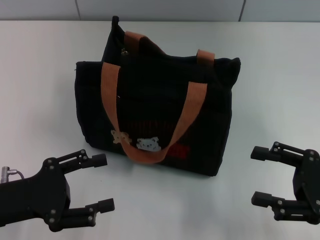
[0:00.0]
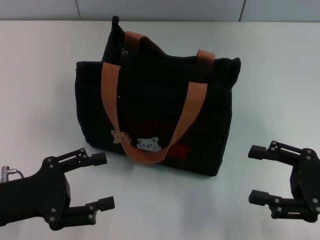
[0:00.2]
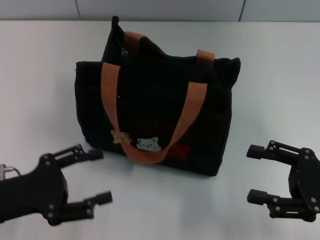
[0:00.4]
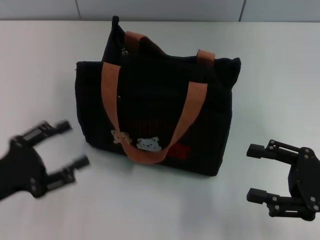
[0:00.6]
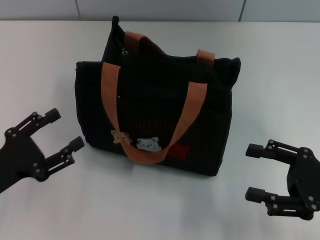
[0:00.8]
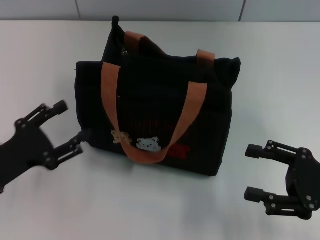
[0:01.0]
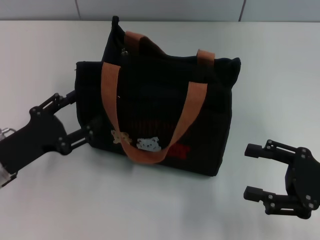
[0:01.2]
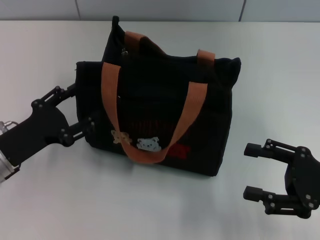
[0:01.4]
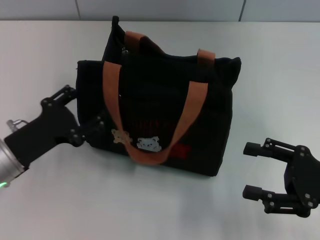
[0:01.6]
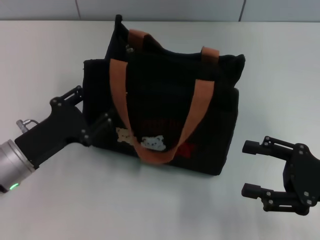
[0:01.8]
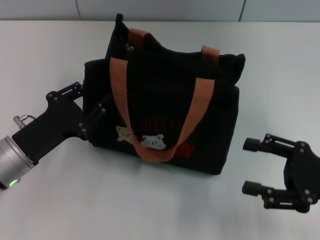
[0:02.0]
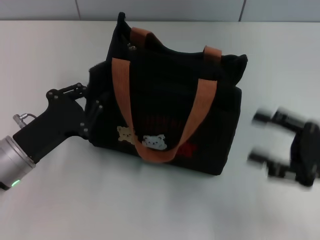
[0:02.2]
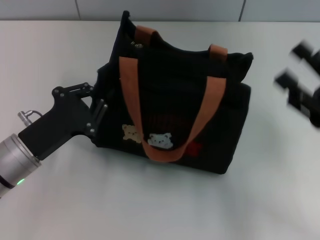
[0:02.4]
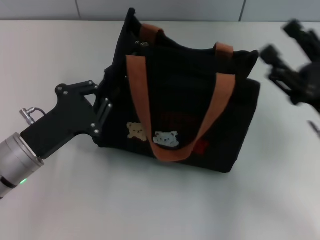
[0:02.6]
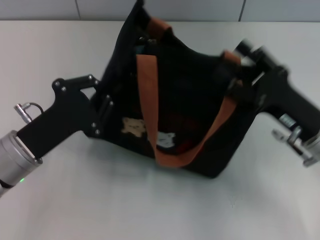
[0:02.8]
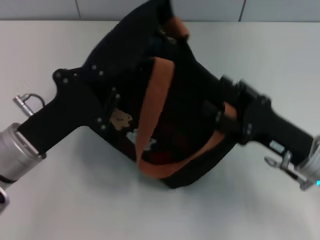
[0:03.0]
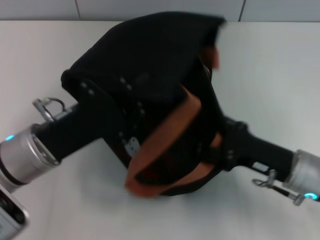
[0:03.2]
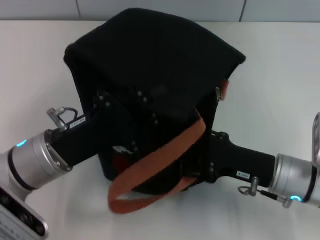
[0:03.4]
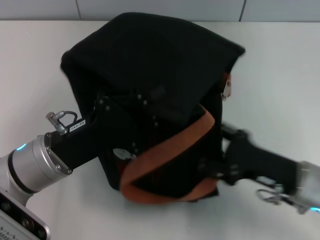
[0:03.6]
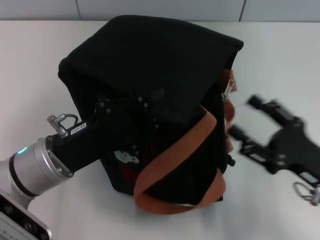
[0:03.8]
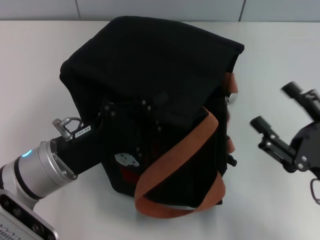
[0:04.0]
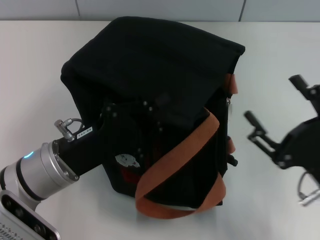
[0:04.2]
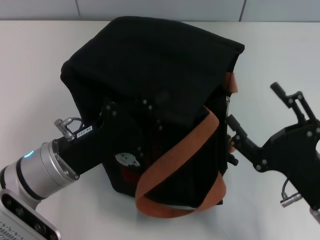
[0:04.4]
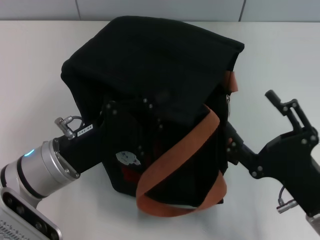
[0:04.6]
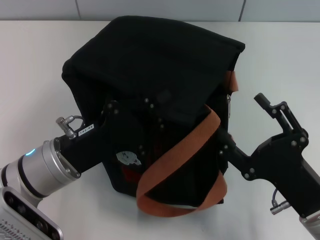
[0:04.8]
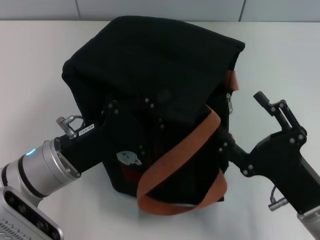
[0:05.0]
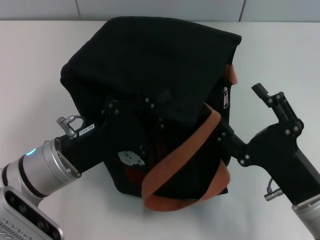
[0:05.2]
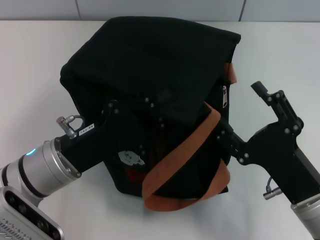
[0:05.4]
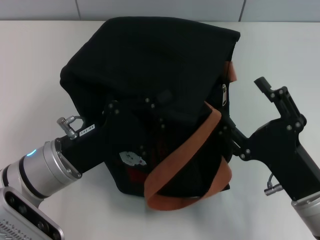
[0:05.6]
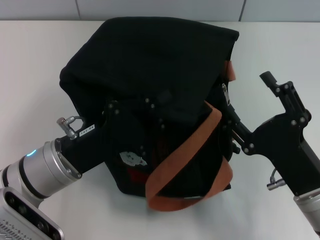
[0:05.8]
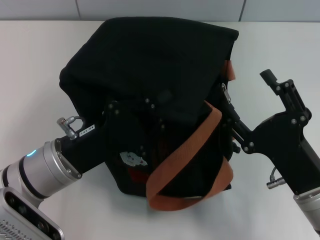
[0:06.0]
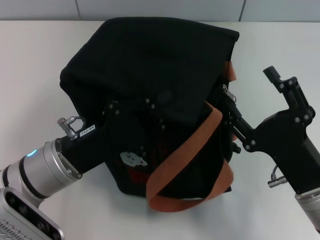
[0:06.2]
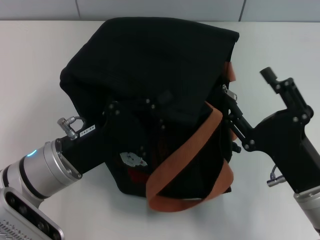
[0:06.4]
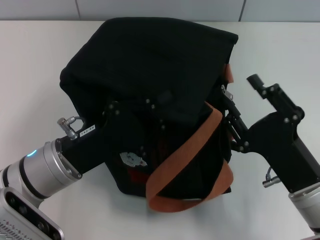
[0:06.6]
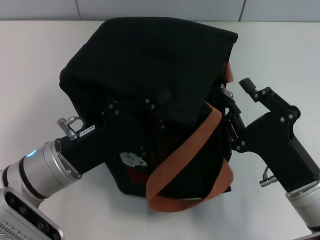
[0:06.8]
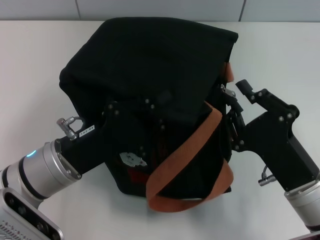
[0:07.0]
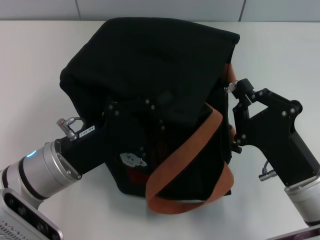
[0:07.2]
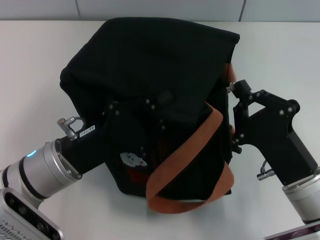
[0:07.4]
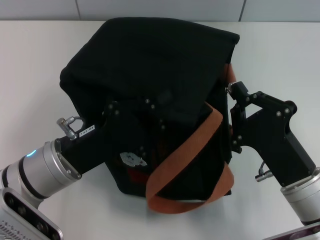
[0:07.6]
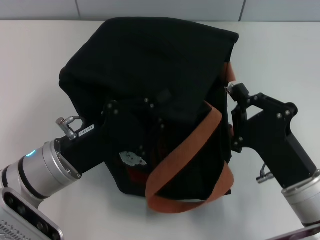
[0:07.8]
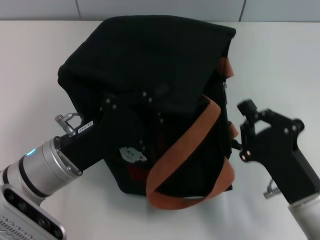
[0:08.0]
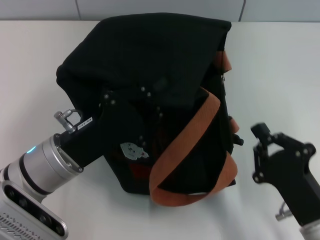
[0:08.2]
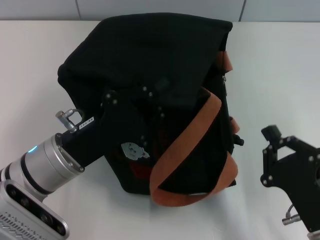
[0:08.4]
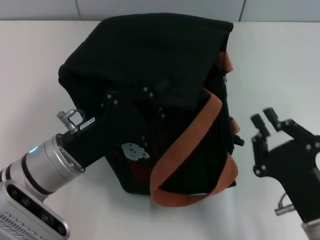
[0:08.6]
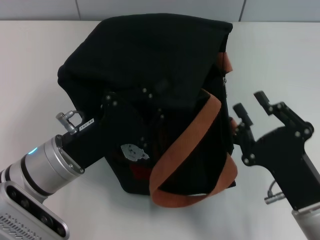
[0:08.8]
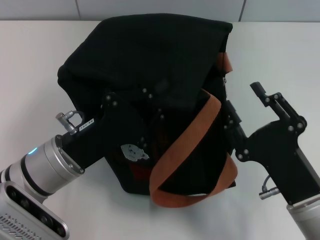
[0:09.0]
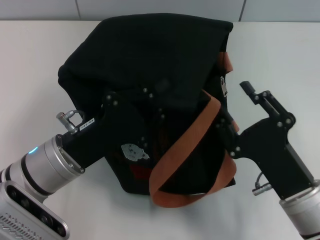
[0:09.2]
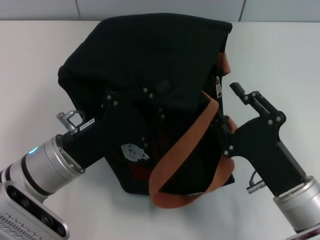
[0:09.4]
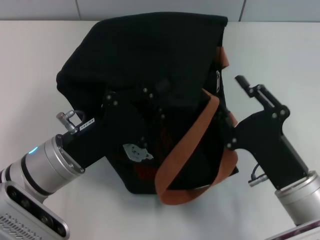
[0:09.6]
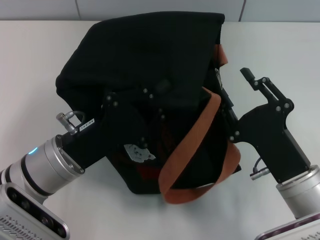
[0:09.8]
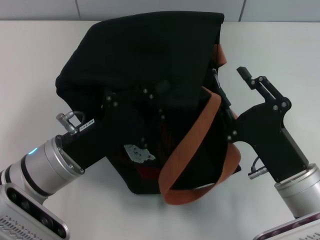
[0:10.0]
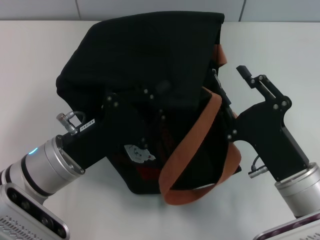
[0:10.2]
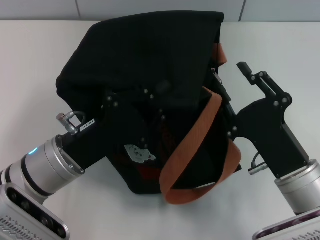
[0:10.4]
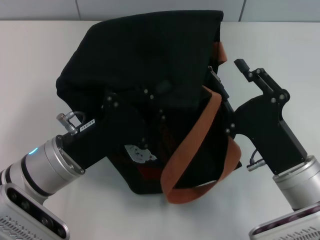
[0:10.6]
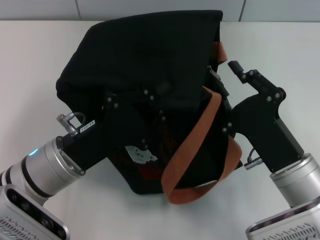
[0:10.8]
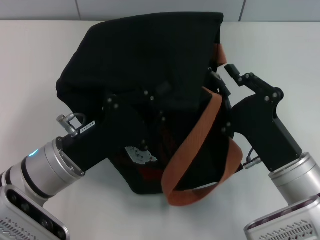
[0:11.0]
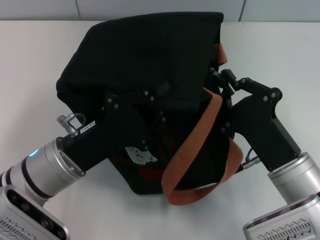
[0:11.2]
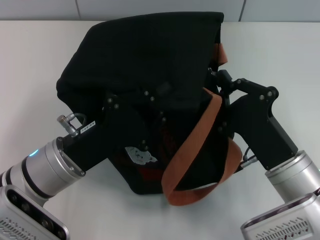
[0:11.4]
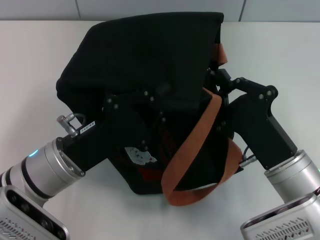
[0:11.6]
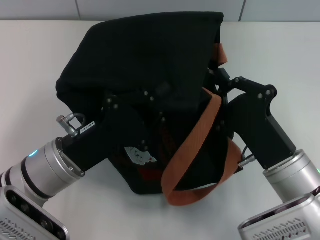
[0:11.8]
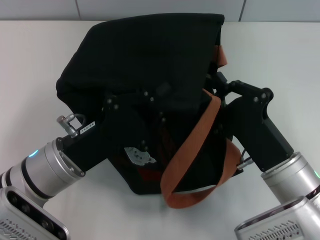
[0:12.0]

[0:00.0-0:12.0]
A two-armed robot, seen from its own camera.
0:00.0 to 0:01.6: The left gripper moves forward, some 5 cm.
0:01.6 to 0:03.0: The right gripper moves to the left, approximately 5 cm; the left gripper shifts by approximately 5 cm, and closes.
0:03.0 to 0:04.4: The right gripper goes approximately 10 cm backward.
0:04.4 to 0:06.0: The grippers stay close to where they were, moving slightly.
0:06.0 to 0:07.6: The right gripper closes up.
0:07.6 to 0:09.0: The right gripper opens.
0:09.0 to 0:10.4: There are only small adjustments of the grippers.
0:10.4 to 0:12.0: The right gripper closes its fingers.

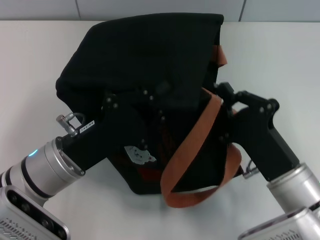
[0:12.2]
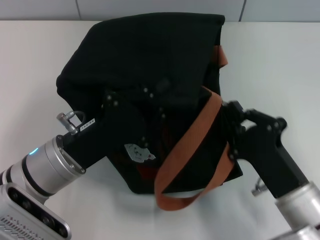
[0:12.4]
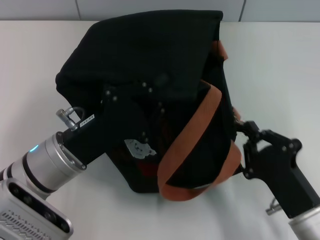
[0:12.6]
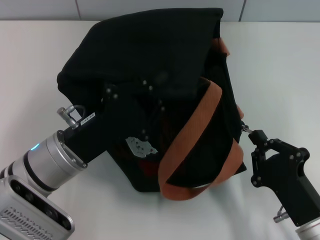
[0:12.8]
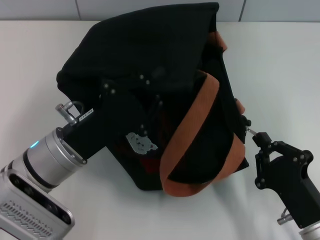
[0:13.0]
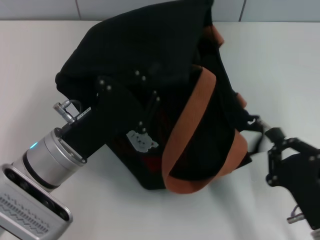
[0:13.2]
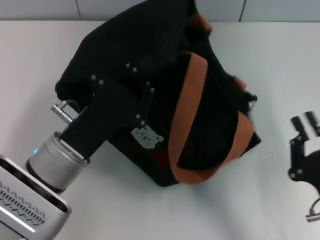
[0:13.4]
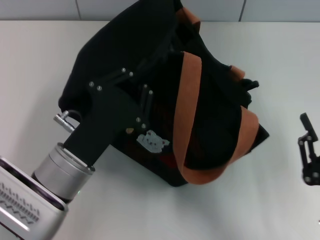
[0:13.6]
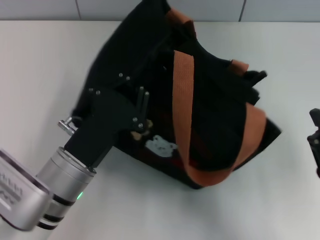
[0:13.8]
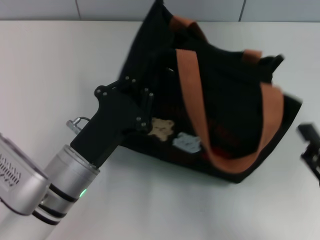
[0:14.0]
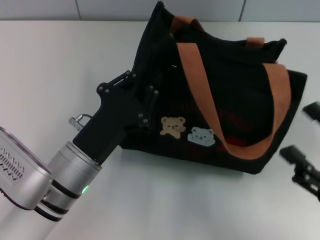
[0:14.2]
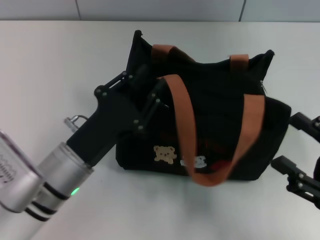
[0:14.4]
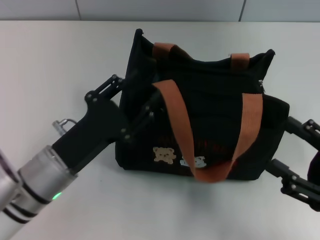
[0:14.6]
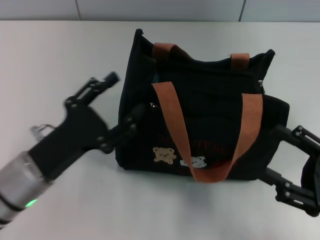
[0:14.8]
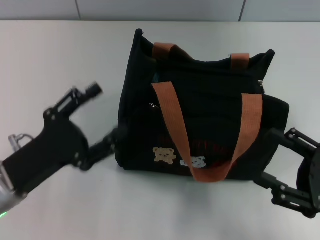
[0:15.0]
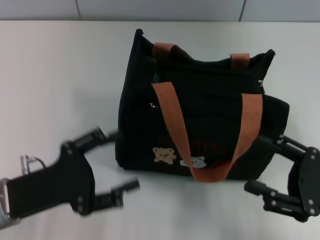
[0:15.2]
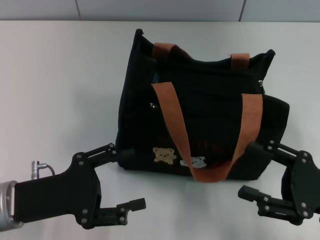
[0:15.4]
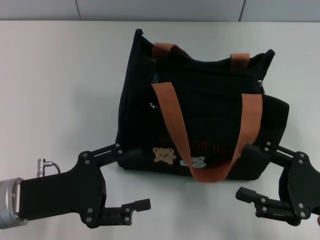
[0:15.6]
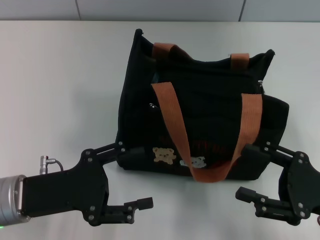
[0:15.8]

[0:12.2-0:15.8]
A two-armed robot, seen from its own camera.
Step, 0:13.4 to 0:14.6: Grab the bag with your left hand.
0:12.2 to 0:14.0: The right gripper heads to the right and backward, covering approximately 10 cm, and opens.
0:14.0 to 0:15.8: The right gripper shifts about 5 cm forward, while the left gripper travels to the left by about 10 cm, and opens.

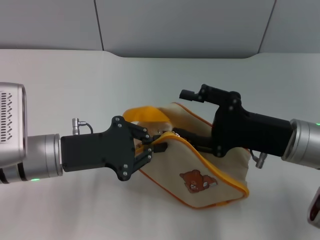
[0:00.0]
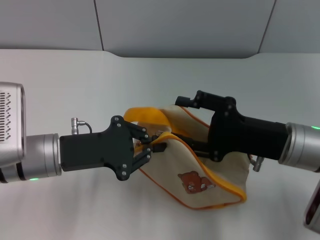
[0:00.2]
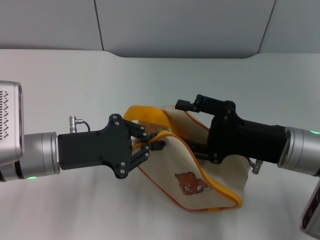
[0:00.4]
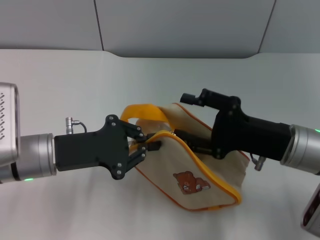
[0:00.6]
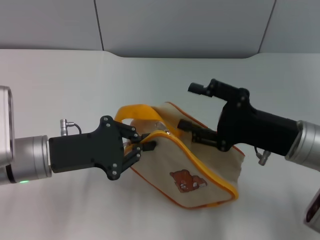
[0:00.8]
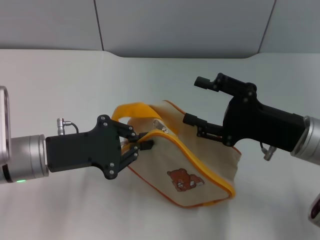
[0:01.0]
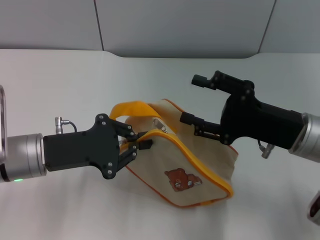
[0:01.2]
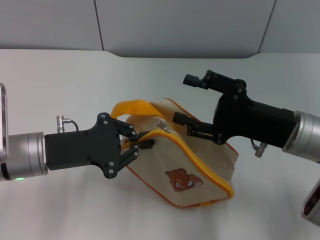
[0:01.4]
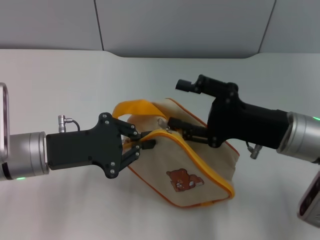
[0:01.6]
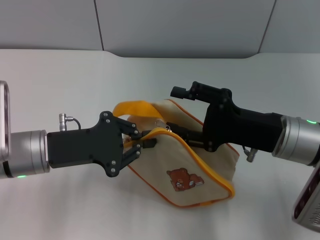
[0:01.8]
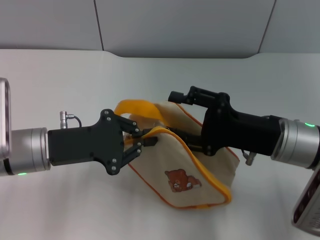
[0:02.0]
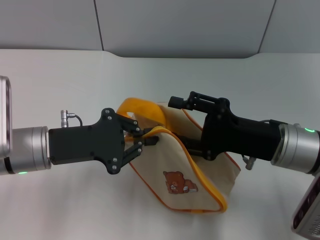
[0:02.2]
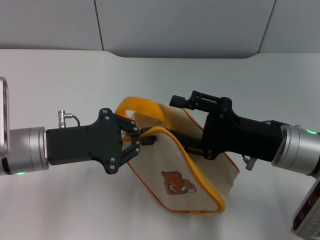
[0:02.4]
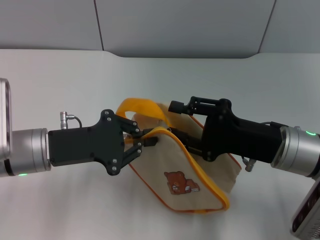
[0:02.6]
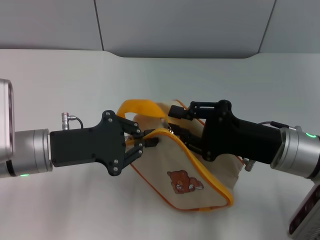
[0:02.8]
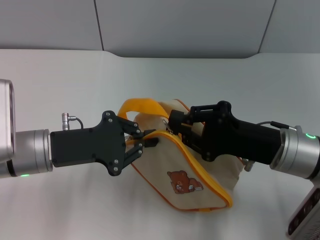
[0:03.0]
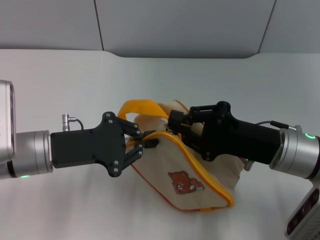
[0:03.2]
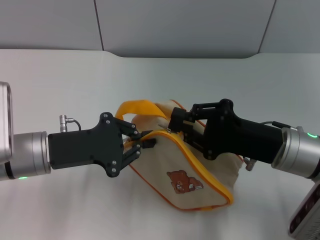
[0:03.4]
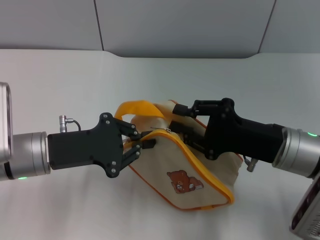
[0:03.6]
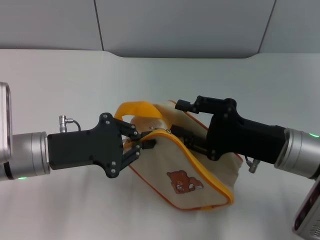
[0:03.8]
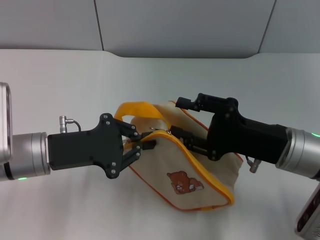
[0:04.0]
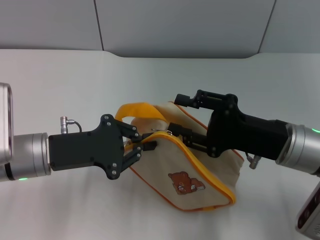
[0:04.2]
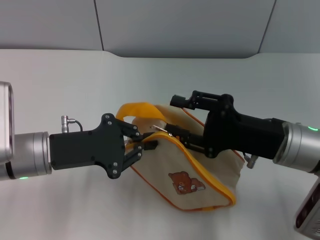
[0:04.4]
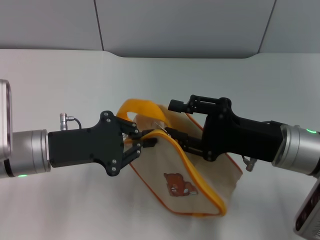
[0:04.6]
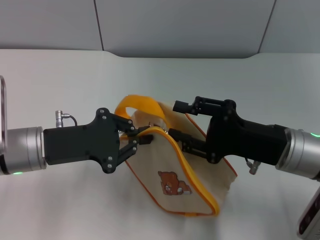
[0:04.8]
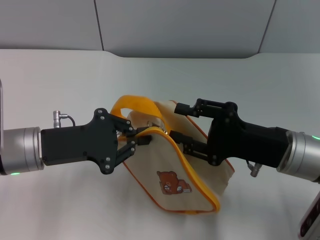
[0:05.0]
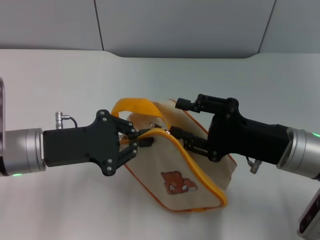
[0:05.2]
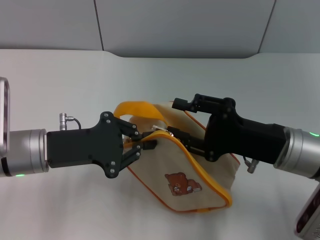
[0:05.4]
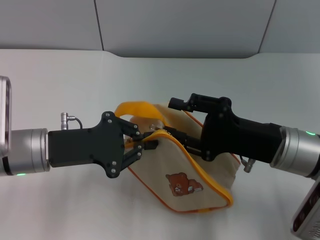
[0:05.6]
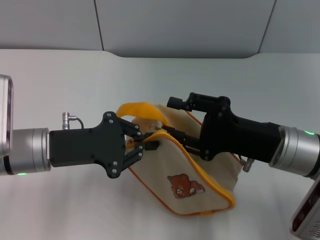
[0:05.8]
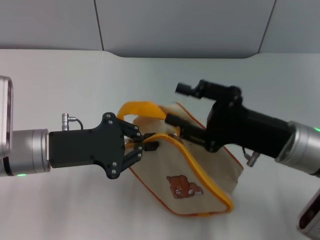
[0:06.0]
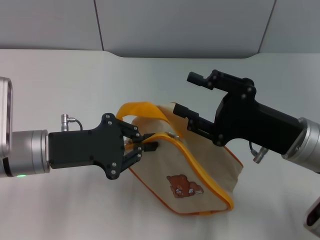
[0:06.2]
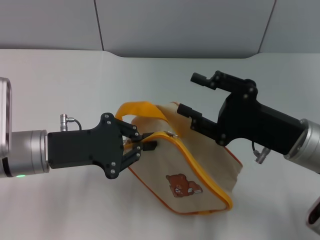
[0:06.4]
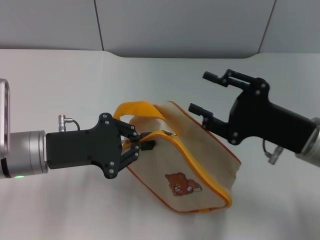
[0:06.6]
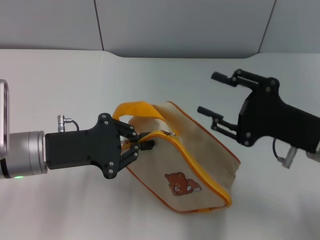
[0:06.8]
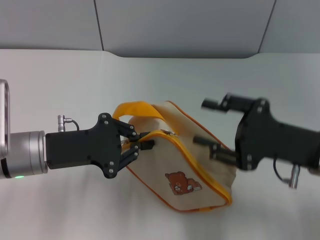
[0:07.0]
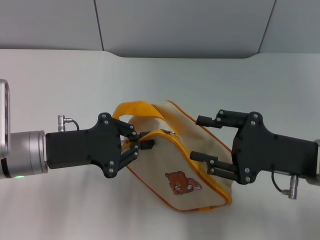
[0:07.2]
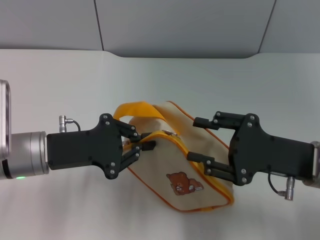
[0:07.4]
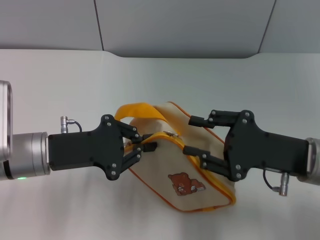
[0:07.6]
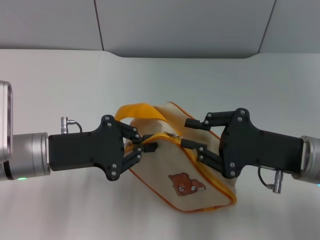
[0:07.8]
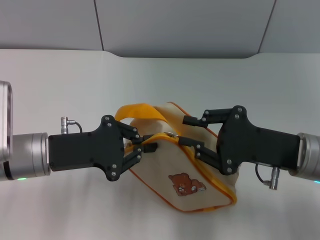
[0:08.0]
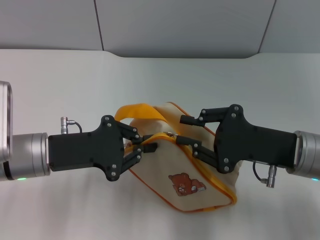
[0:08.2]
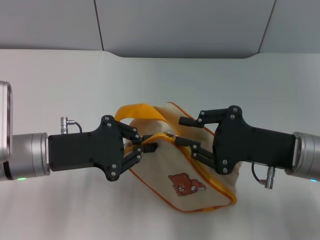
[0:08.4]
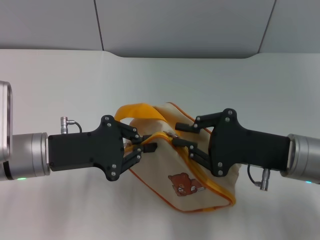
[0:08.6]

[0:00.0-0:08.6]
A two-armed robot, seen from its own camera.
0:00.0 to 0:02.8: The grippers move only a little.
0:02.8 to 0:04.4: The right gripper closes and opens again.
0:04.4 to 0:05.8: Both grippers stay about where they are.
0:07.2 to 0:08.6: There are only small adjustments of the grippers.
